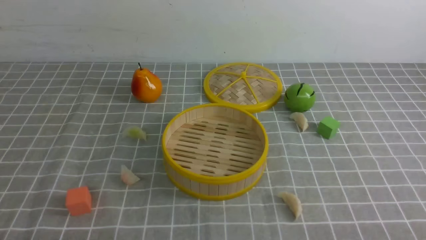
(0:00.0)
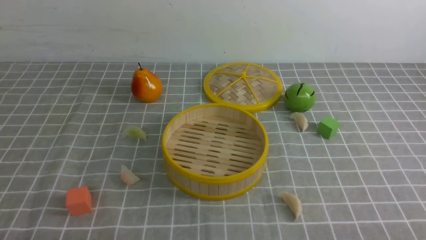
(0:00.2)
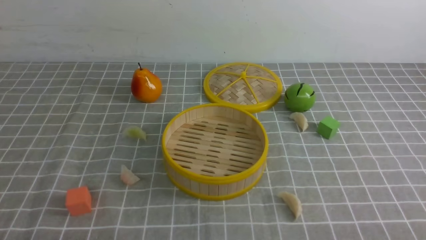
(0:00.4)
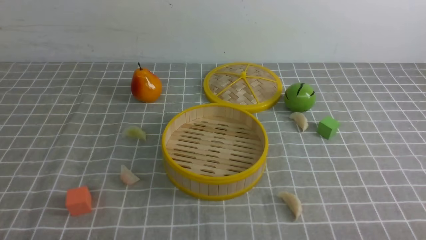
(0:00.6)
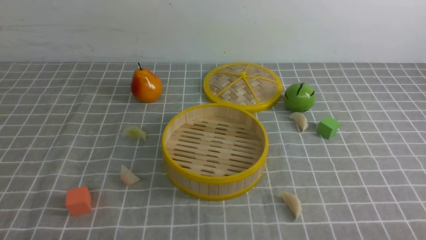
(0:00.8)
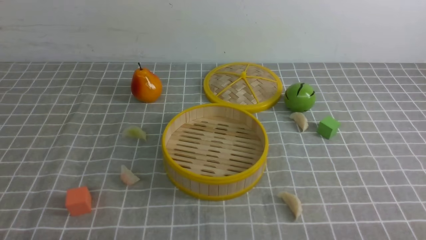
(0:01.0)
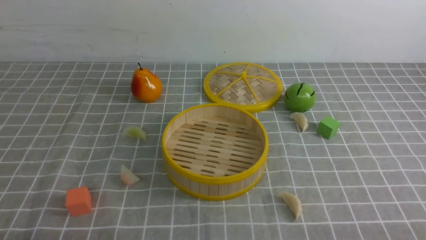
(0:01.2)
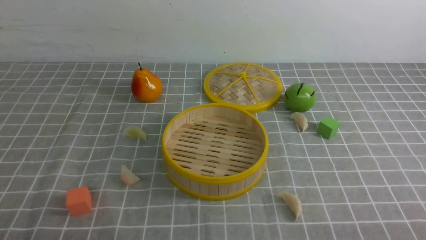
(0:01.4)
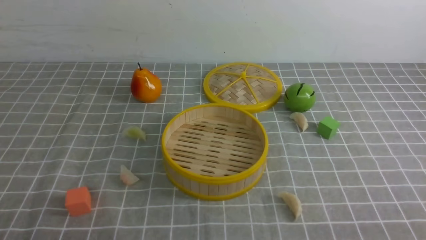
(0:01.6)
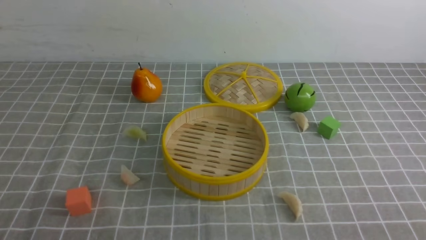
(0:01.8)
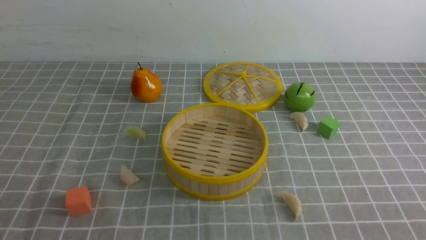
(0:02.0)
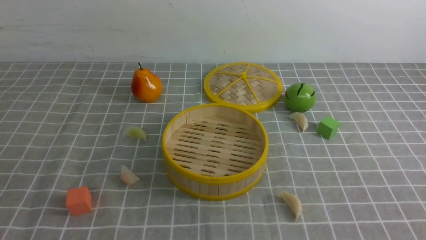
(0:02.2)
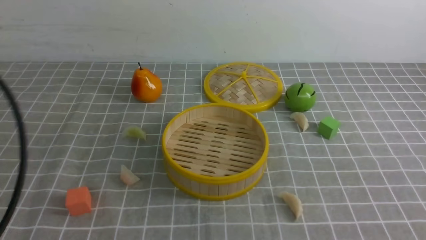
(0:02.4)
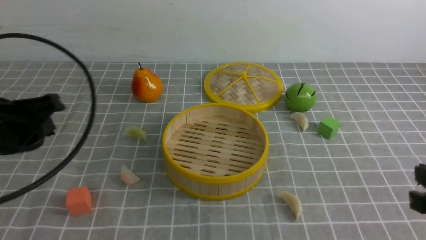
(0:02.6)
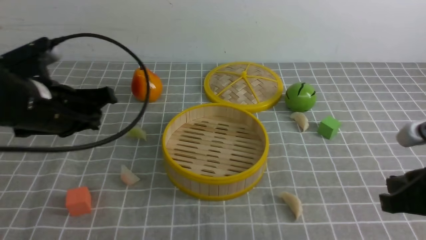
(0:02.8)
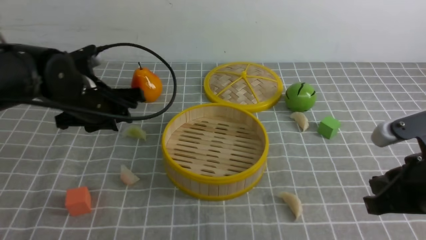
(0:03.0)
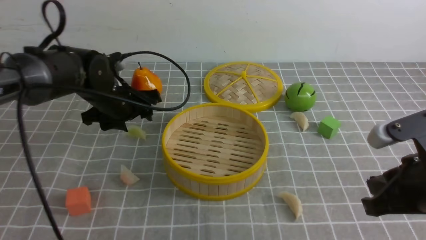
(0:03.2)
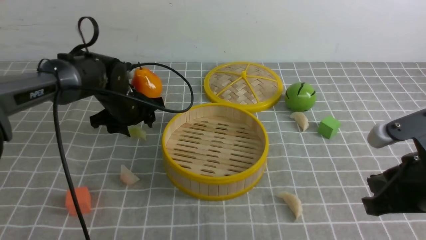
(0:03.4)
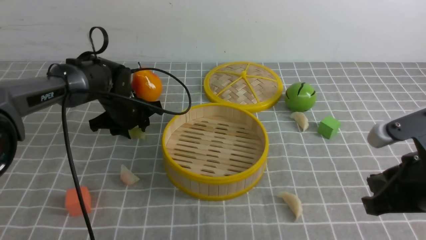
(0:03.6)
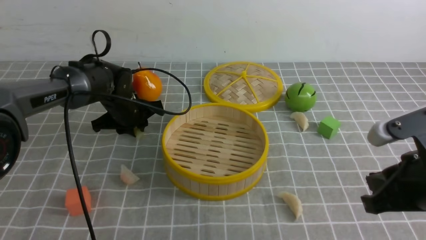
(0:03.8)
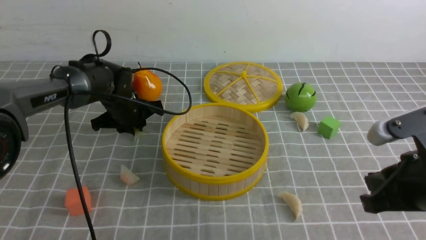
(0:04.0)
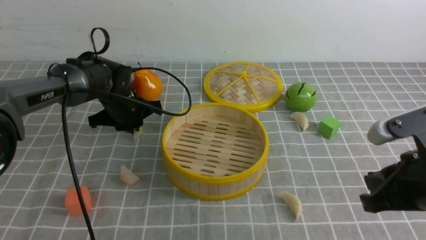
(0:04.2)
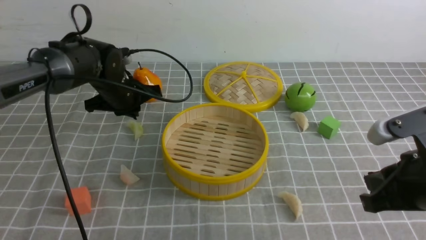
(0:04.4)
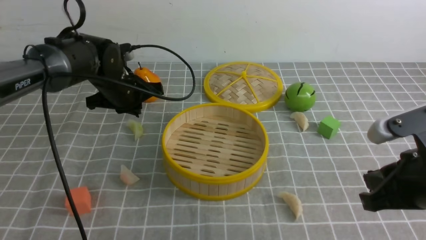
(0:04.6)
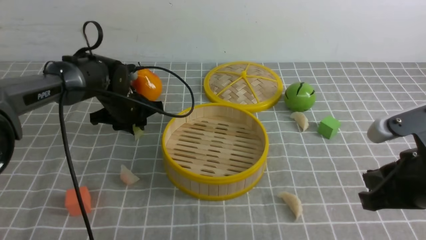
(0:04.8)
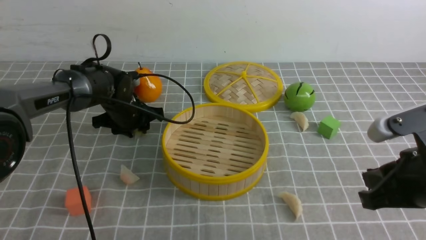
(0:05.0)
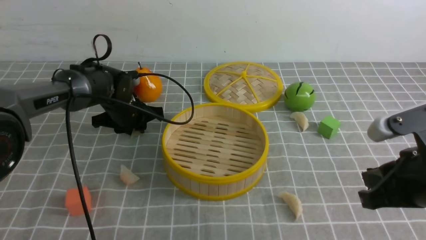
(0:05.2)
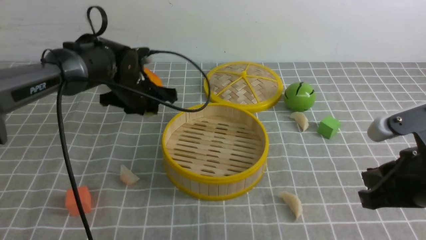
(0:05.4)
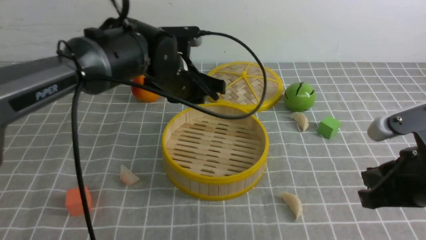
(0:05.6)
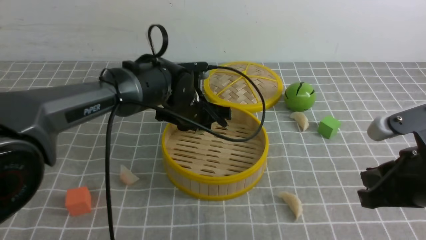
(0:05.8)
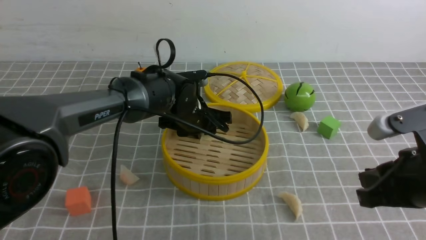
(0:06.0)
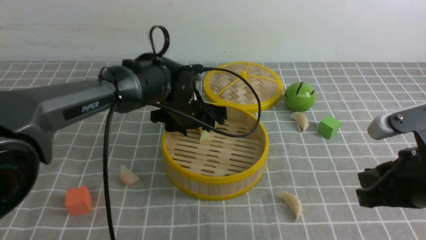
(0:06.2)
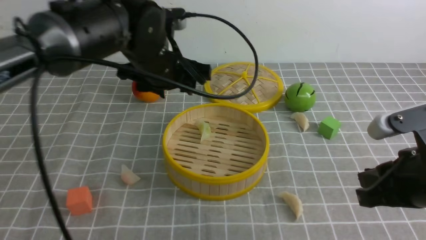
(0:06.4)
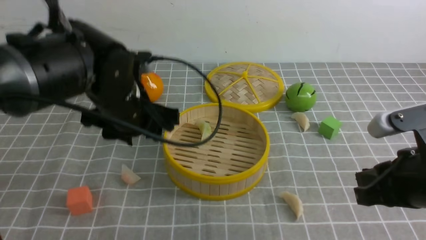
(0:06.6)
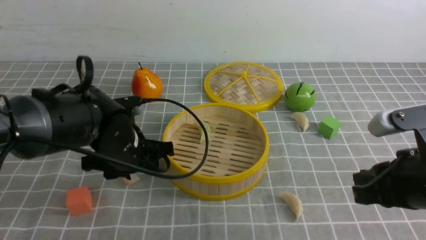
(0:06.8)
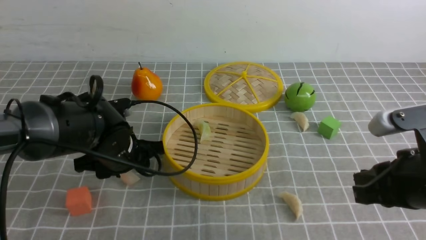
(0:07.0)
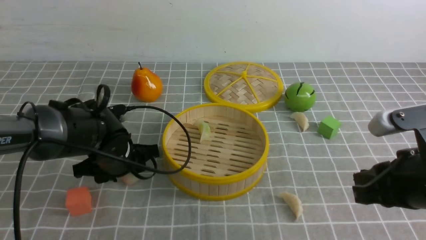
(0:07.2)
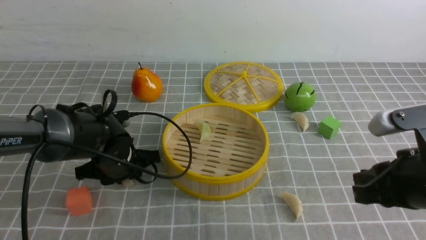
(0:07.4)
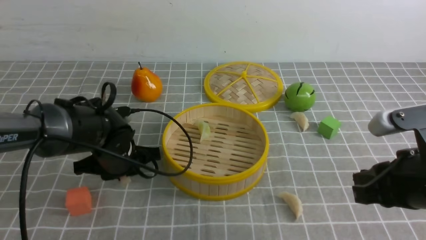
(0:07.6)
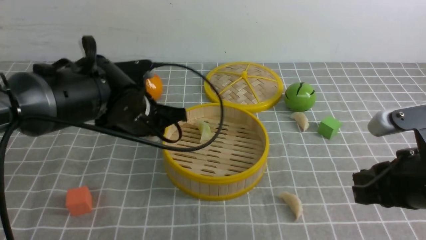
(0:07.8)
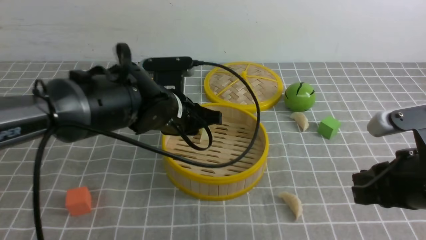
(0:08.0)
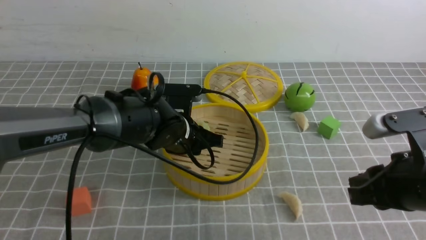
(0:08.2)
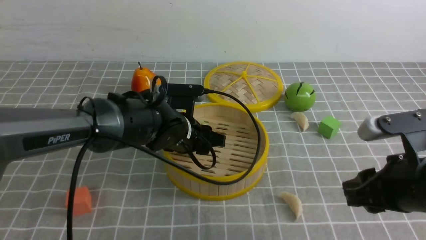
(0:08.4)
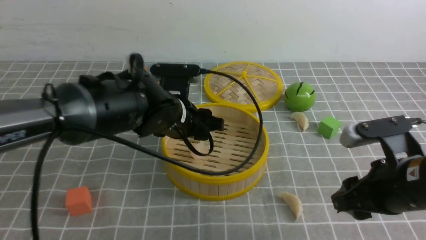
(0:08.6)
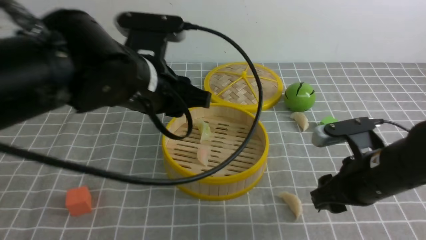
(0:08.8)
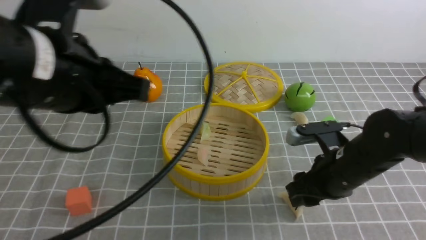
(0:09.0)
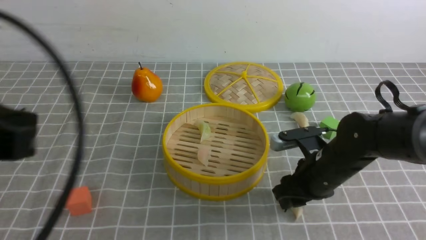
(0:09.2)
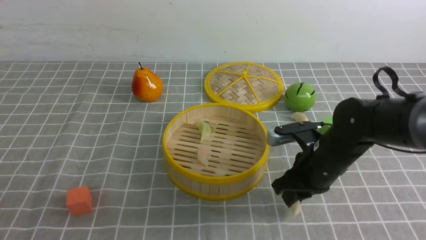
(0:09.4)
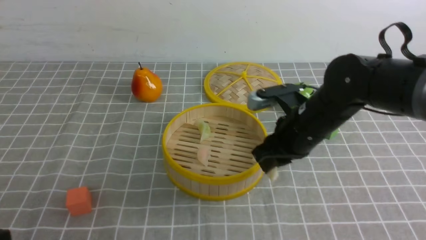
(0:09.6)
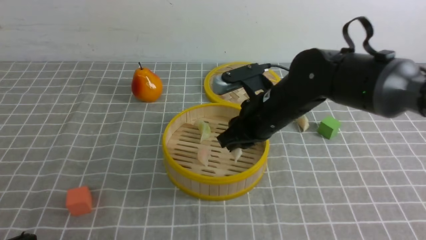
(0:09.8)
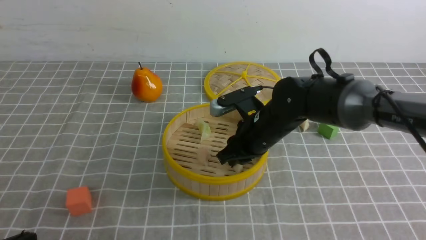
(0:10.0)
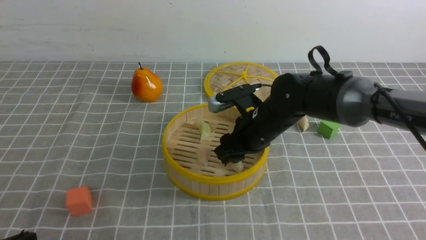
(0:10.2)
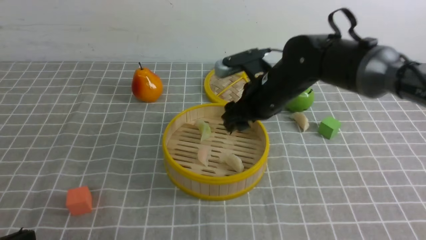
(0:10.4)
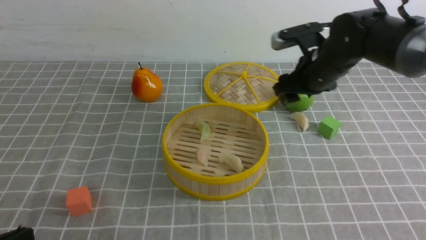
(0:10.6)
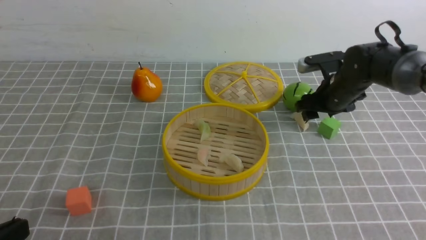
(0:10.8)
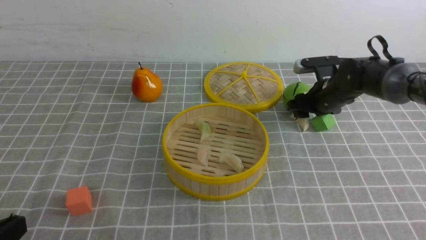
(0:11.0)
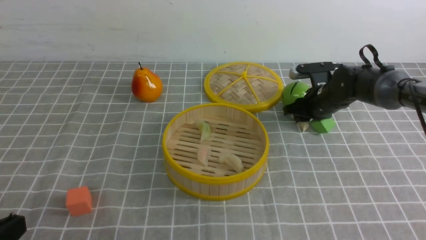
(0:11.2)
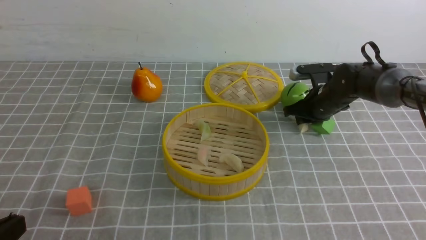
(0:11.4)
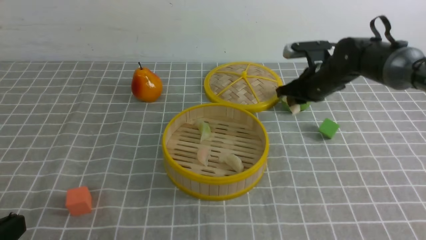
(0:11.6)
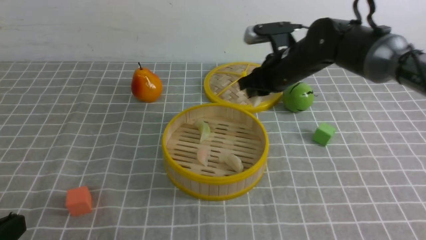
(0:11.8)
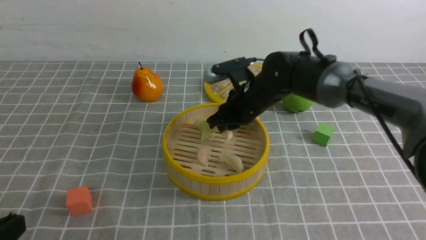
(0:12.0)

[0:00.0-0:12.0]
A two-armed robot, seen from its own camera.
Task of the whole recording: put the dumplings into the steamer on the table with the grey tablecloth.
Step, 0:00.0 to 0:05.2: use the left arm to grab a dumpling.
Step, 0:05.4 to 0:06.2: use the left arm to put the dumpling into the steamer.
Step, 0:06.4 to 0:07.6: use the left arm to grab a dumpling.
Step, 0:07.8 to 0:08.6: use the left arm to put the dumpling into the steamer.
Step, 0:08.8 to 0:09.4: use the right arm to grab a dumpling.
Step, 0:09.6 to 0:10.2: use the right arm to put the dumpling into the steamer.
Step, 0:10.4 to 0:11.4: use the right arm to grab a dumpling.
0:01.6 to 0:03.0: The left gripper travels forward by about 30 cm, and closes, then opens again. Meanwhile the right gripper is displaced forward by approximately 15 cm, and closes up.
0:03.0 to 0:04.4: The left gripper heads forward and downward, covering about 10 cm, and closes its fingers.
0:04.4 to 0:06.0: The left gripper heads to the right, covering some 10 cm, and opens.
0:06.0 to 0:07.6: The left gripper is displaced to the left and backward by roughly 10 cm, and goes upward and returns, approximately 10 cm each way.
0:07.6 to 0:09.0: The left gripper travels upward and backward by approximately 25 cm, and opens, then closes once more; the right gripper moves forward and downward, some 15 cm, and opens.
0:09.0 to 0:10.4: The left gripper goes approximately 20 cm downward, backward and to the left. The right gripper travels forward, to the left and upward by about 15 cm, and closes and opens again.
0:10.4 to 0:12.0: The right gripper reaches some 10 cm to the right, then returns, and closes its fingers.

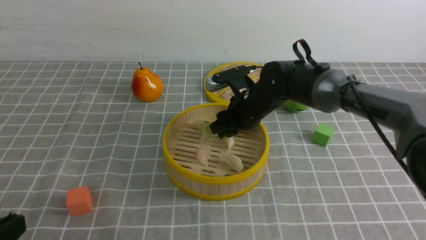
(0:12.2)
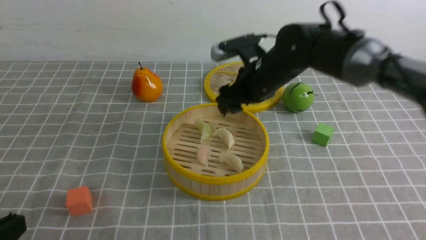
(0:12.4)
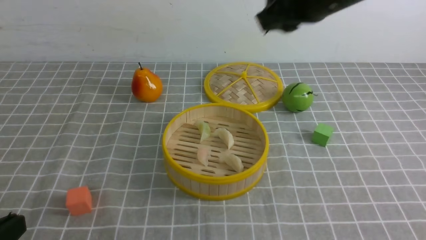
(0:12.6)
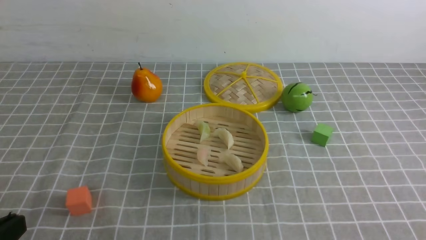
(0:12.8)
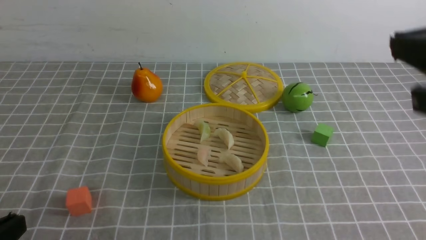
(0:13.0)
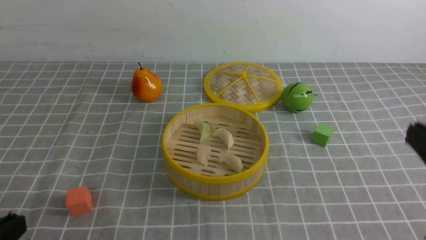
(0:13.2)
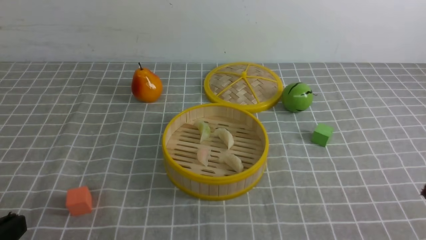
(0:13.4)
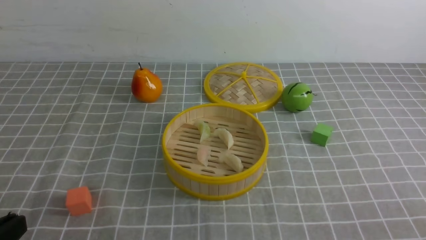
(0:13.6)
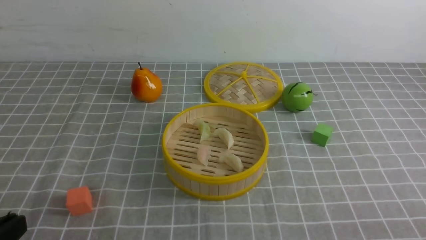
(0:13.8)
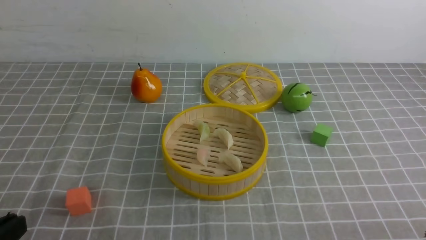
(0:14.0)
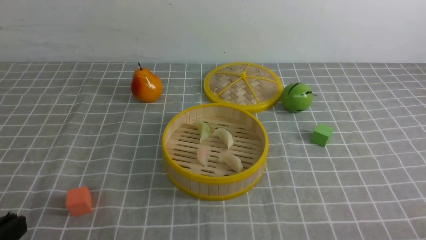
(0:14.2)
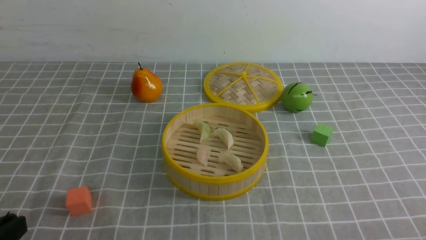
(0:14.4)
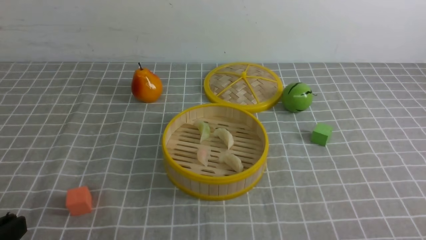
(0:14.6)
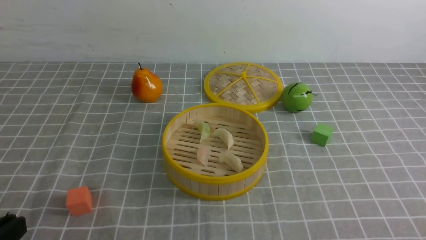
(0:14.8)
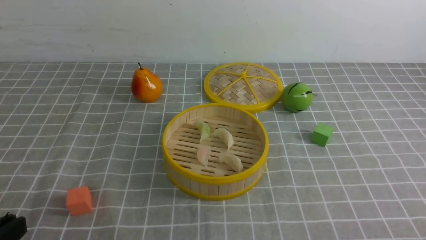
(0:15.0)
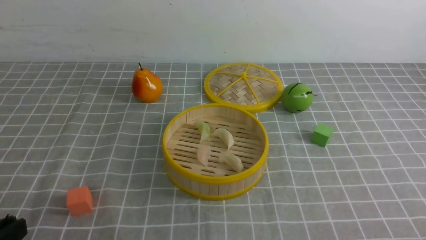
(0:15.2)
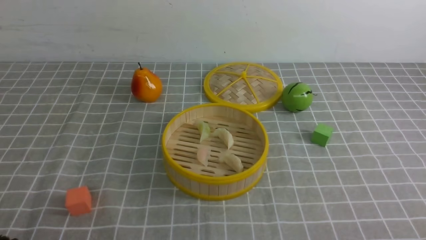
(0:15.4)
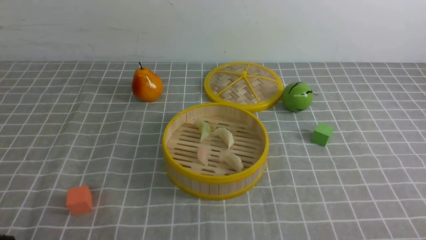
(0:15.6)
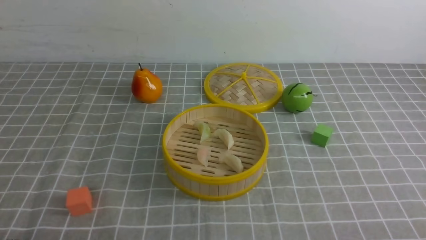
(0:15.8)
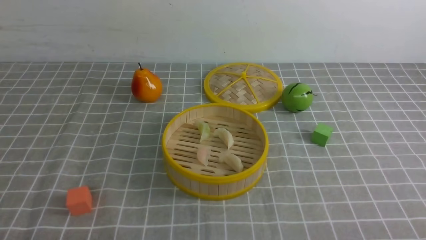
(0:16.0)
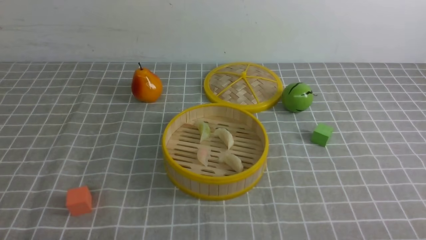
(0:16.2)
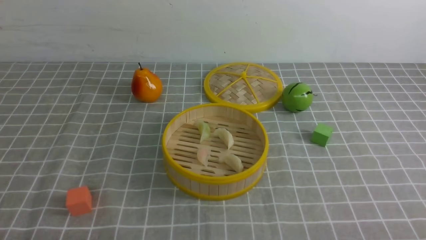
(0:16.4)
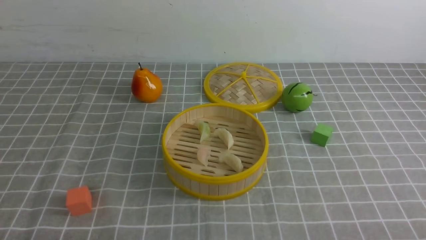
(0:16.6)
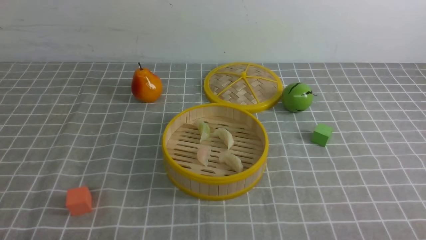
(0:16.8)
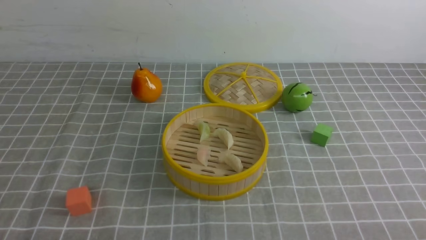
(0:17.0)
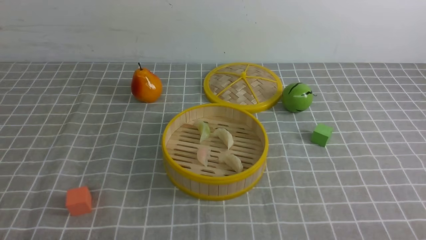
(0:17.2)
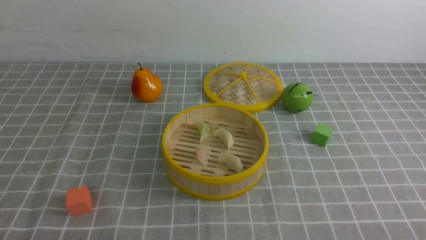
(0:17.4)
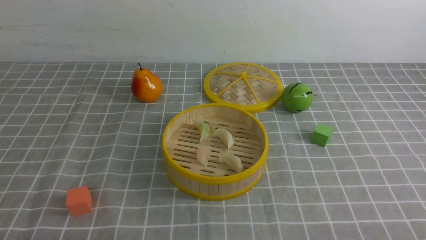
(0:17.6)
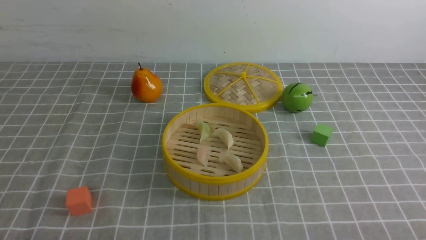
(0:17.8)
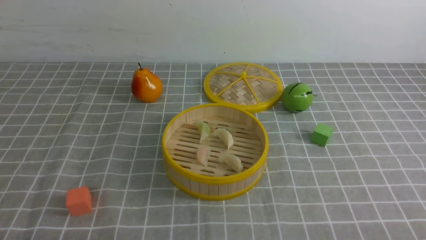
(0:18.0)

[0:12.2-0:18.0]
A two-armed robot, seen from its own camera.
Task of the whole recording: put the dumplings into the steamer on the table with the grey tablecloth.
0:12.2 to 0:13.6: The right gripper goes roughly 40 cm backward and to the right, and closes up.
0:16.6 to 0:18.0: Both grippers stay put.
